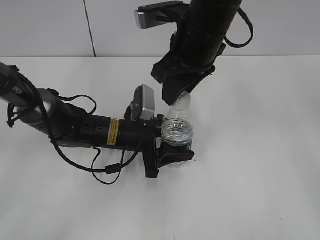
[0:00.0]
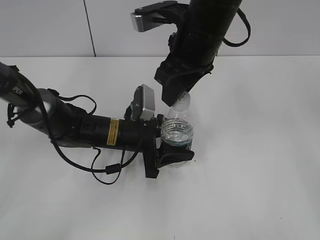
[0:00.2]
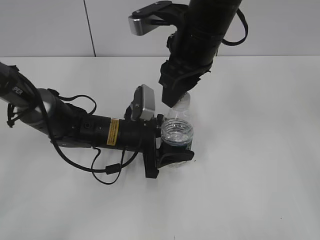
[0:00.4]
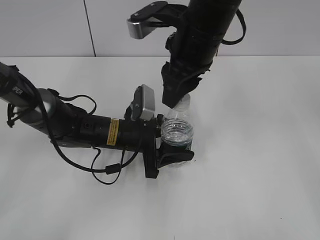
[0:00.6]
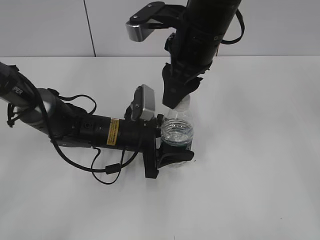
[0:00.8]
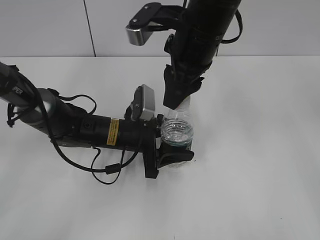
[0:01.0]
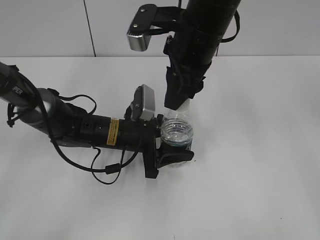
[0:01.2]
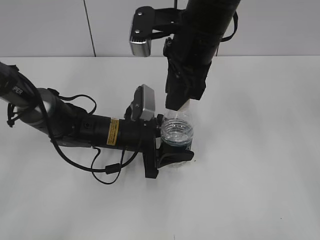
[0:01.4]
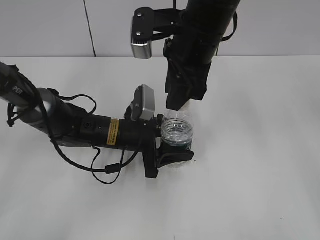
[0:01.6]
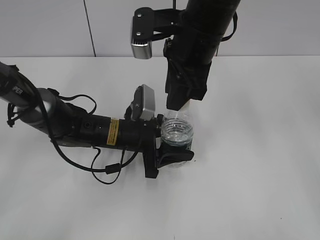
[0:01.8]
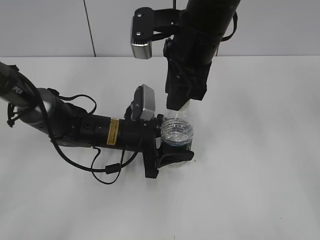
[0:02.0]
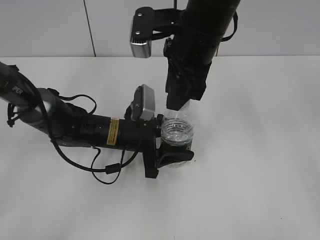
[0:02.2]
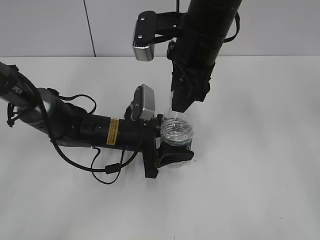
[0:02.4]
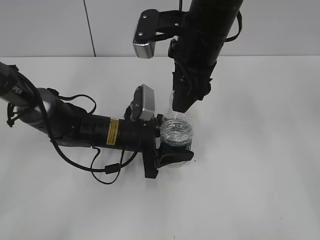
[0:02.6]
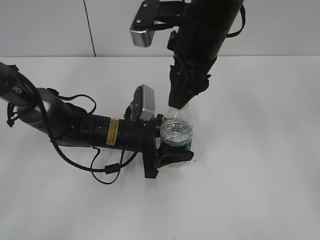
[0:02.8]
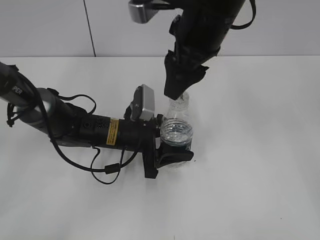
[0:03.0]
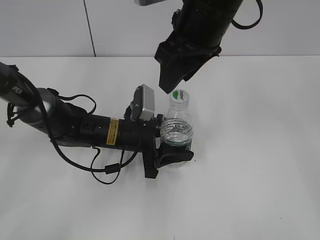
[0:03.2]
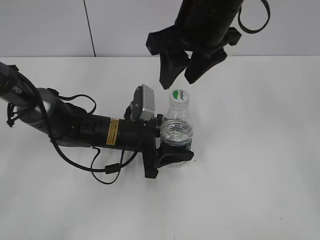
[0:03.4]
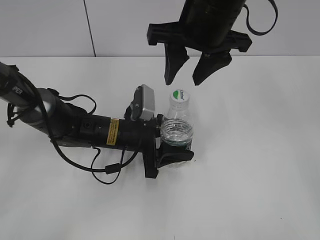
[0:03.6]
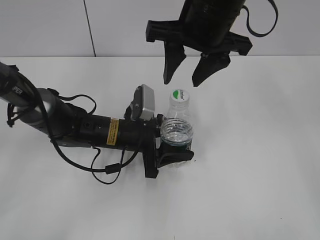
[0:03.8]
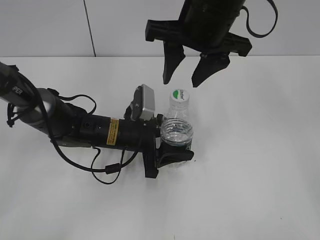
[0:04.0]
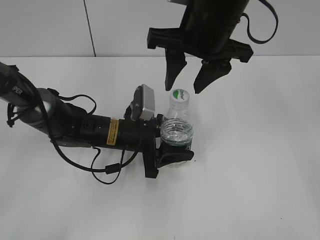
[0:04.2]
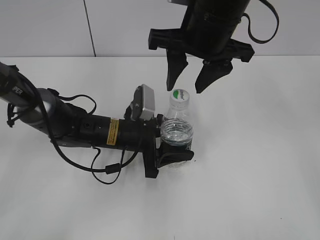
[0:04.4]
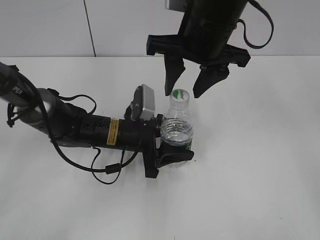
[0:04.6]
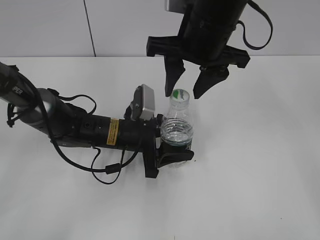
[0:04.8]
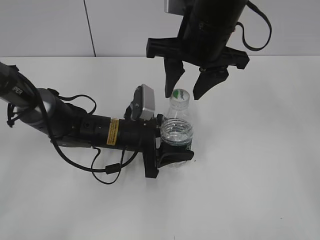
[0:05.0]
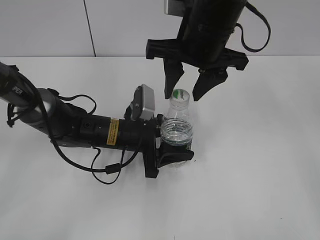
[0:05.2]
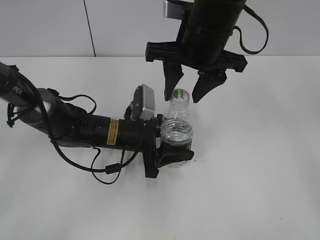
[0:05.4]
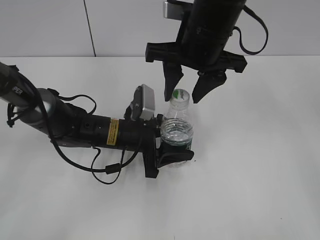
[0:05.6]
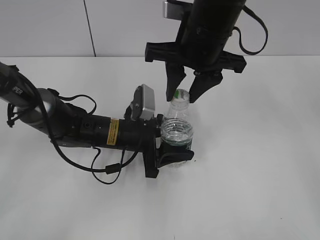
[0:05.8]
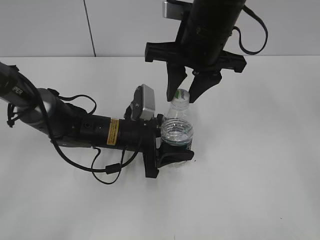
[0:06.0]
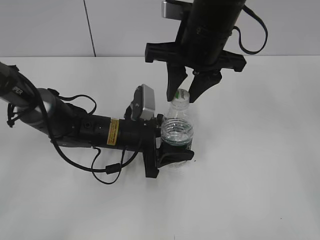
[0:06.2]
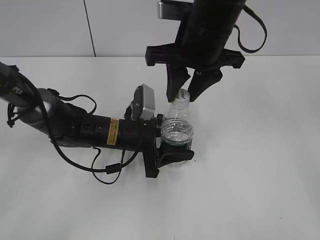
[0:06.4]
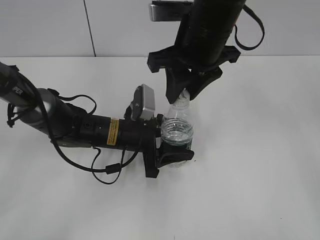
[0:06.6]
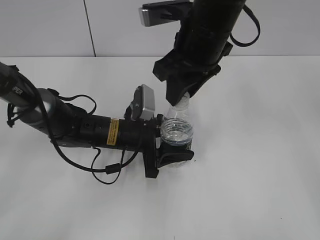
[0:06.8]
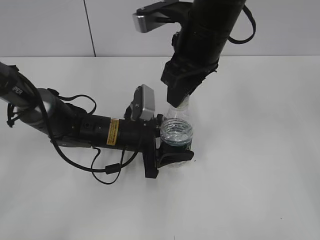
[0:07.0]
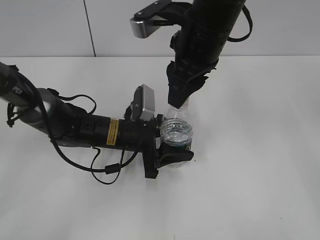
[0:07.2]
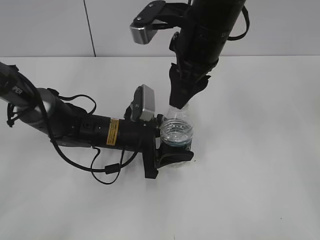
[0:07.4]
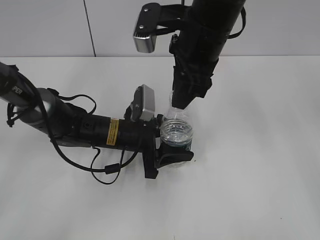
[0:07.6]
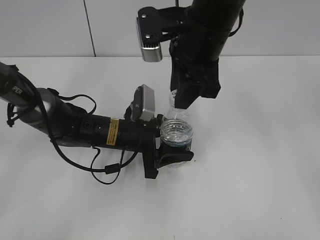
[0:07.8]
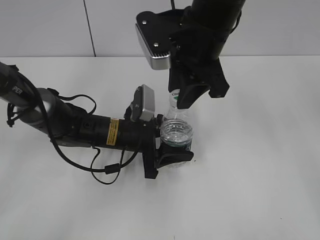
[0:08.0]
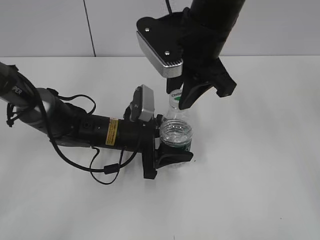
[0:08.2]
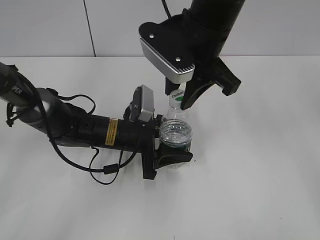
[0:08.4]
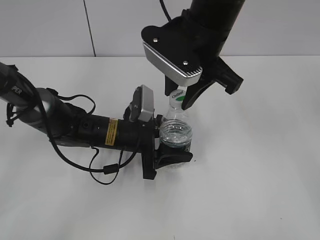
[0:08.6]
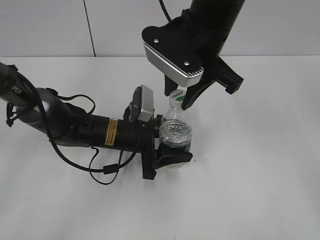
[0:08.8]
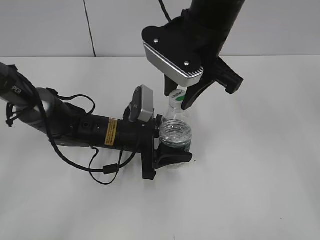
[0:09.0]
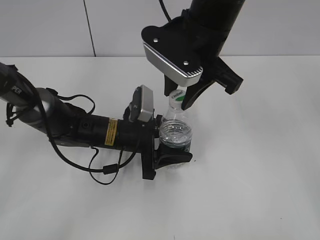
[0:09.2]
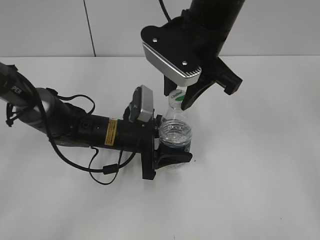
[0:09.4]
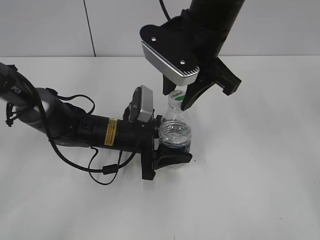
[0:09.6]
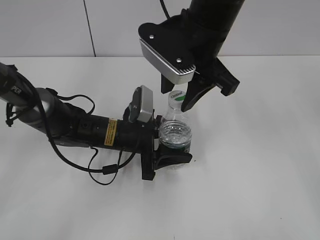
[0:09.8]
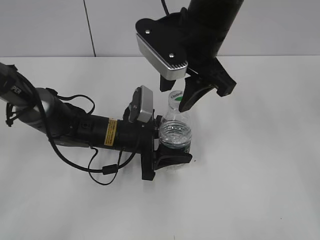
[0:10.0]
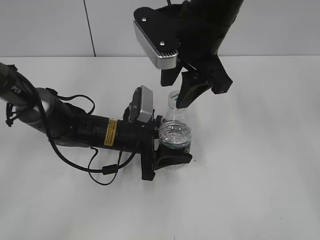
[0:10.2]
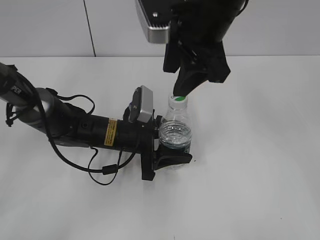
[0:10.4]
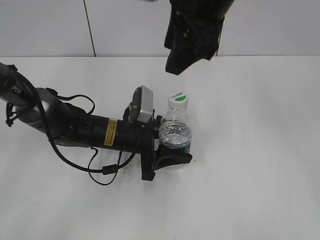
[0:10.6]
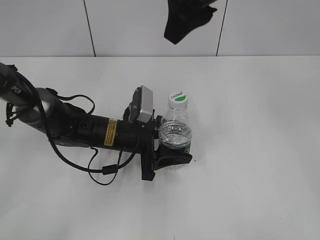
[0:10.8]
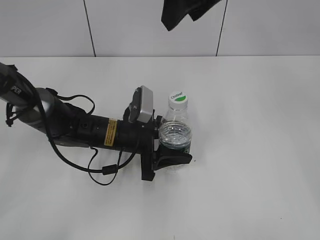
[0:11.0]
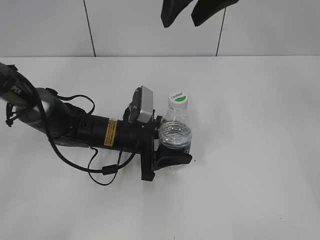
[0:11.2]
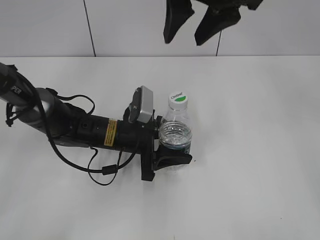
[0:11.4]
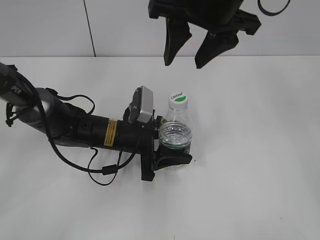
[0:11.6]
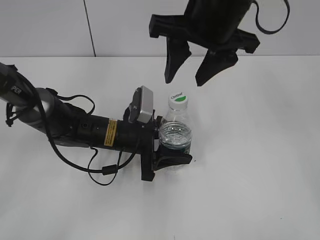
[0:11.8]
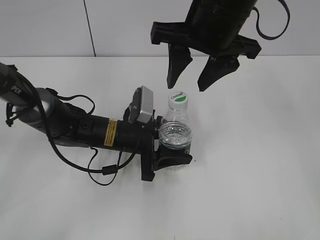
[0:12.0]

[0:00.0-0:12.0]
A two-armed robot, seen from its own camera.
0:01.6 to 0:03.0: The right gripper opens up.
0:04.4 to 0:06.0: The right gripper closes up.
0:09.0 to 0:10.4: The right gripper opens its fingers.

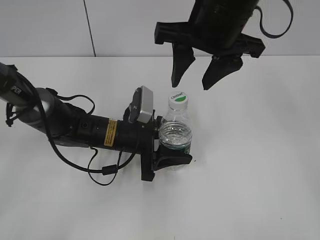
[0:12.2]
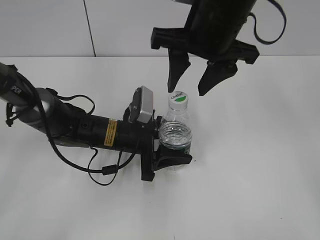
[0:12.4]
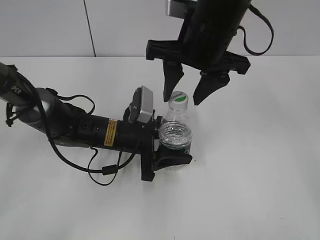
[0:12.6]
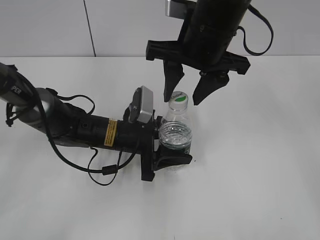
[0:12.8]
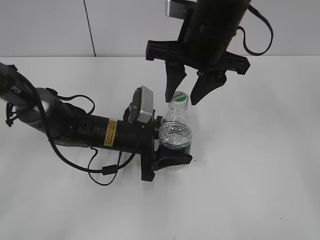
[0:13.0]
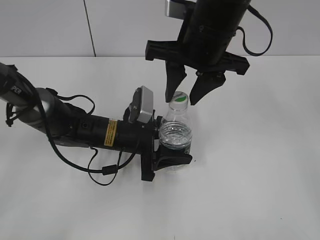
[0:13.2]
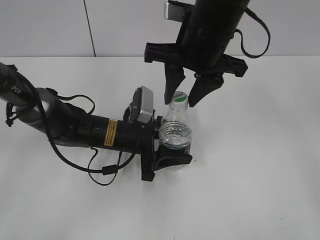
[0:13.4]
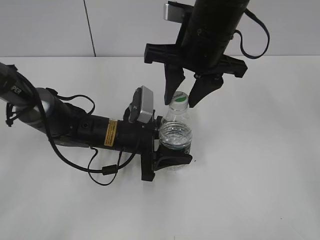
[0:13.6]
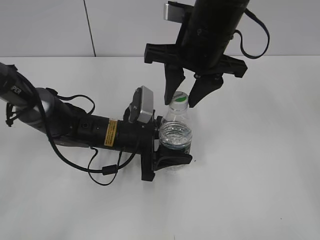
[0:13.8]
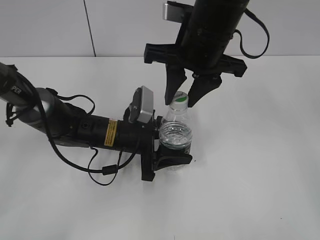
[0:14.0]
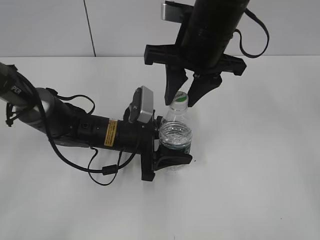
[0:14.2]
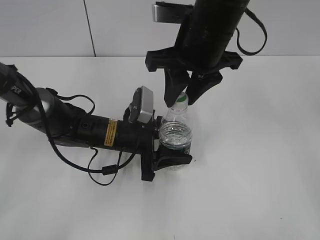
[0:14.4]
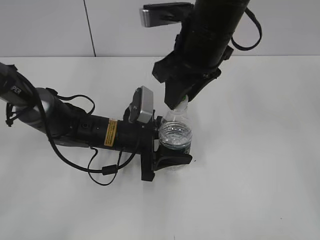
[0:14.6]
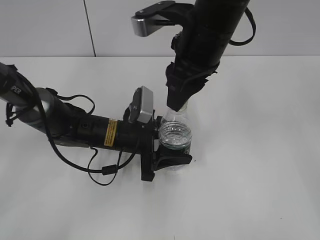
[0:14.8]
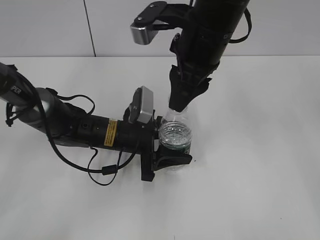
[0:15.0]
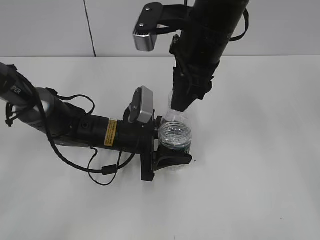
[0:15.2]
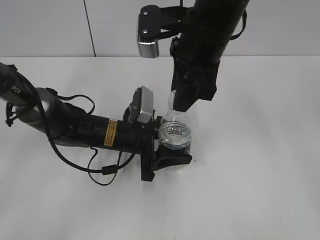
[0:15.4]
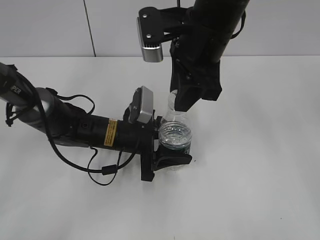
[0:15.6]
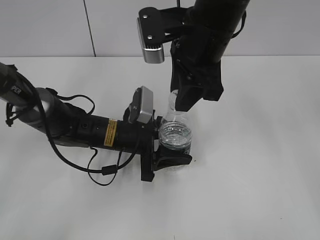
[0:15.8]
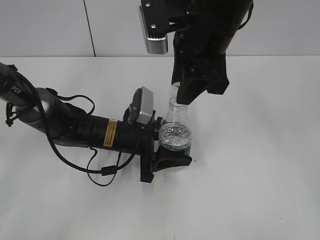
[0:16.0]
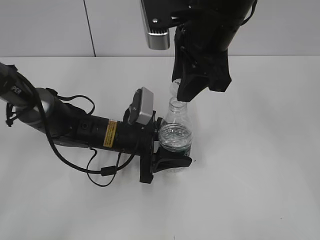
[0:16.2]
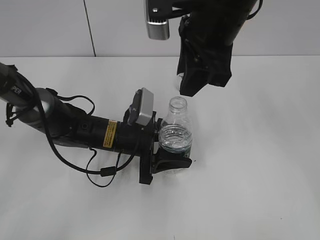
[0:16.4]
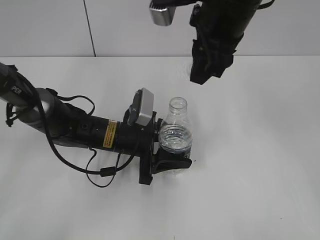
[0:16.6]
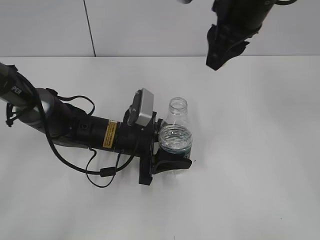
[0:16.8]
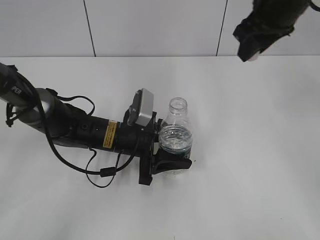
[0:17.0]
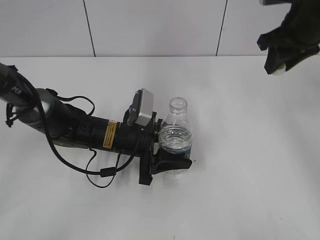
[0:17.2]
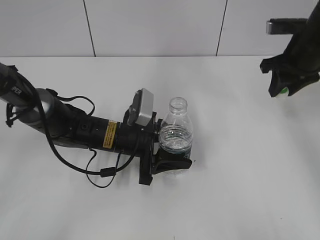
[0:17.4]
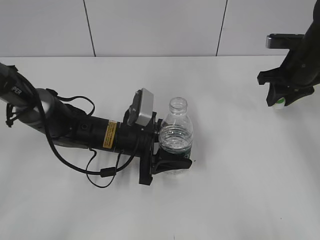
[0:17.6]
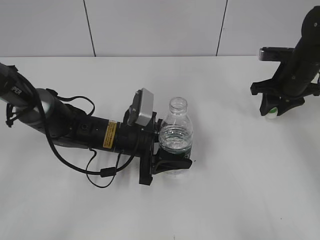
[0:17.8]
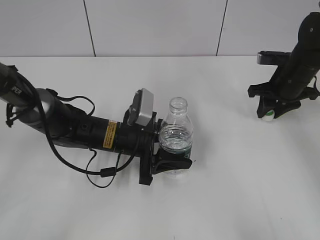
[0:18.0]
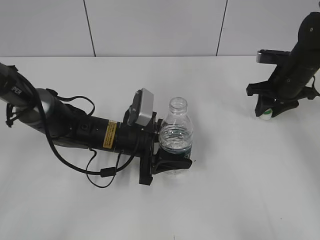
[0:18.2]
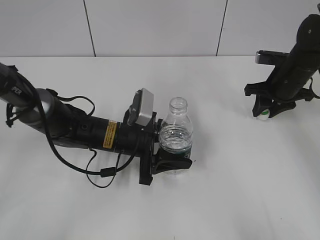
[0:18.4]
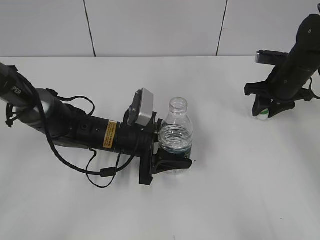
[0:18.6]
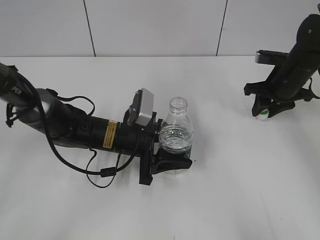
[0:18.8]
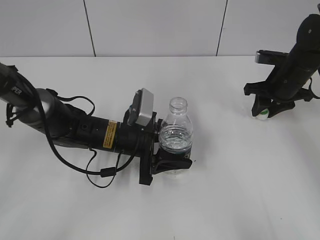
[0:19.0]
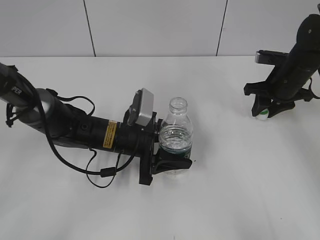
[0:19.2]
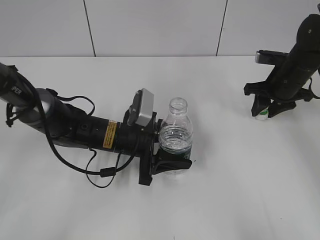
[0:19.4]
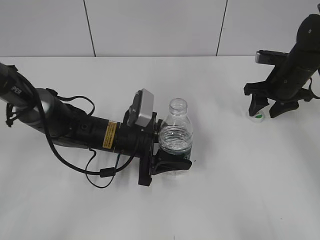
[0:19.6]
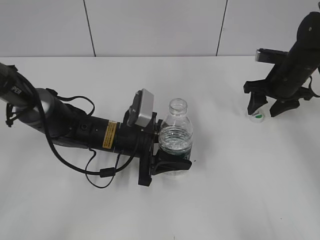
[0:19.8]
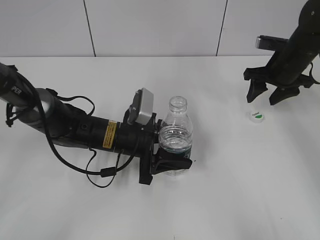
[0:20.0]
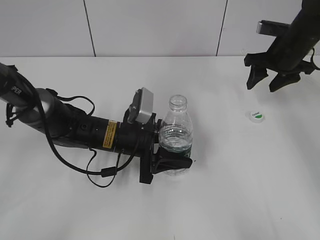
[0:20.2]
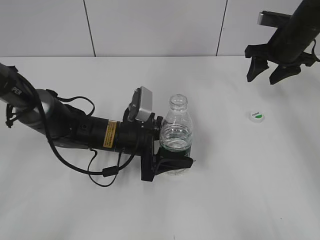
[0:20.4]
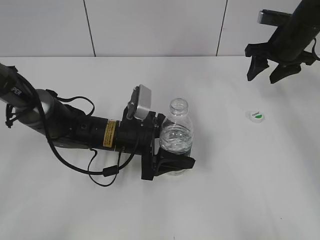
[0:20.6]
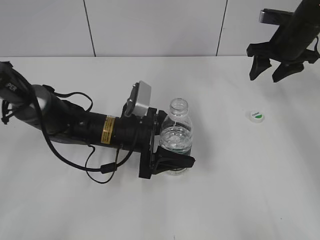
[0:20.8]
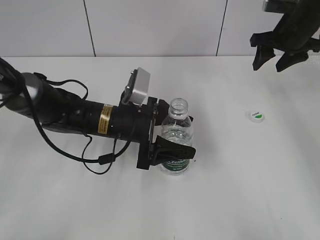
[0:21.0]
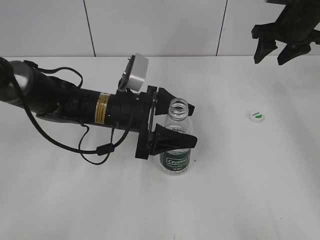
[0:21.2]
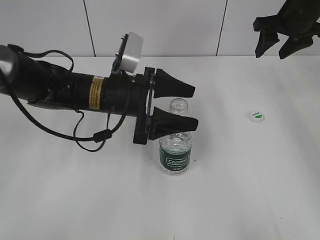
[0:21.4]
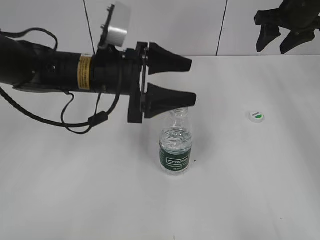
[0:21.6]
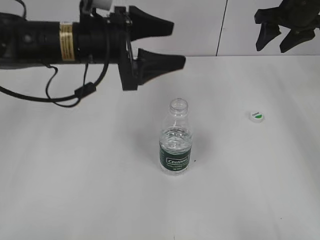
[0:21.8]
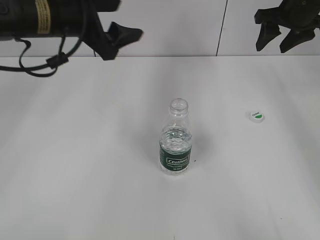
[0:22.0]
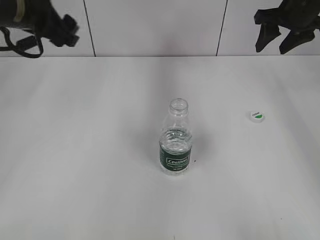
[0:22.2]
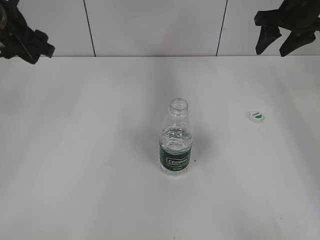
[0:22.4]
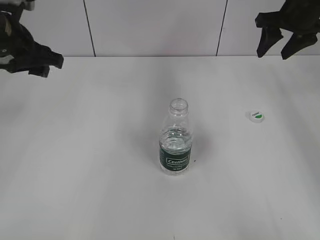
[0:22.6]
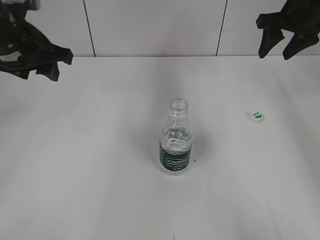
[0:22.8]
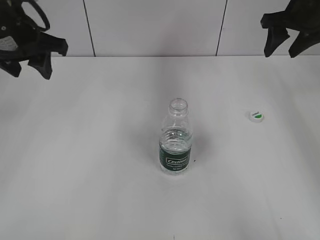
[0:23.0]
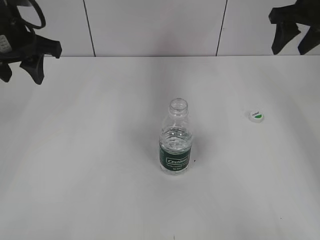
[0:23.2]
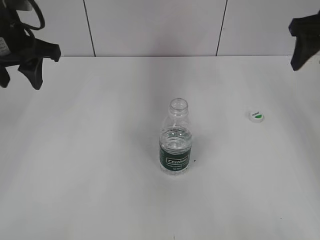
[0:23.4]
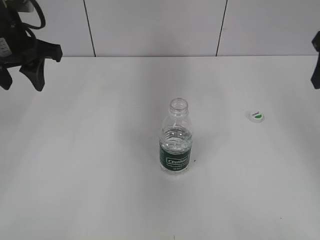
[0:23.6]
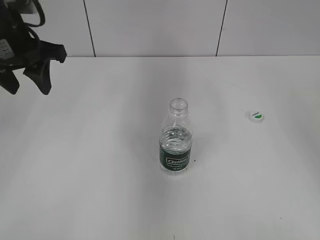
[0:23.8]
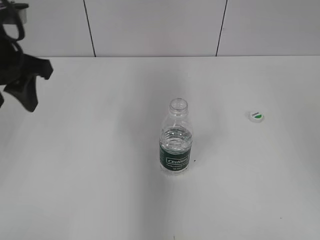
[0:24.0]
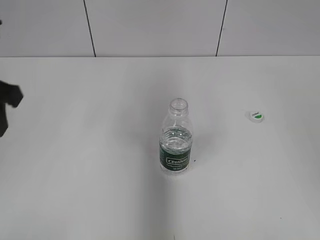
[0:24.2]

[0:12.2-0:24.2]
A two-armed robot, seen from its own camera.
Step, 0:12.2 to 0:16.2: Unscrew the bottle cap with the right gripper while holding the bottle with the left gripper.
Step, 0:16.4 to 0:19.8: Place the bottle cap on the table with the right gripper.
Step, 0:20.0 to 0:21.2: Place the bottle on the table with the left gripper.
0:12.2 to 0:13.8: The right gripper closes.
0:15.2 to 0:16.6: There are only small adjustments of the grippers.
0:16.6 to 0:18.2: The right gripper travels to the right, downward and forward by approximately 30 cm.
0:18.2 to 0:19.8: The right gripper opens.
0:19.8 to 0:21.2: The right gripper travels upward by roughly 10 cm, while the left gripper is displaced upward by about 5 cm, and opens up.
0:21.2 to 0:22.6: The left gripper heads to the left and upward, covering approximately 20 cm.
0:22.6 to 0:24.2: The right gripper moves backward, roughly 30 cm. The left gripper travels backward by approximately 10 cm.
